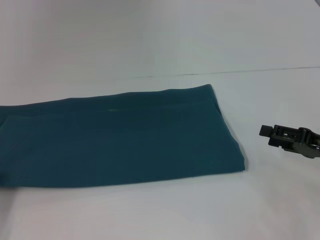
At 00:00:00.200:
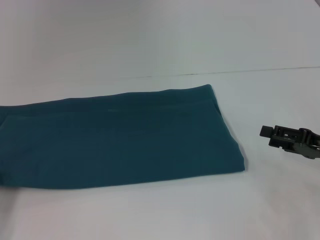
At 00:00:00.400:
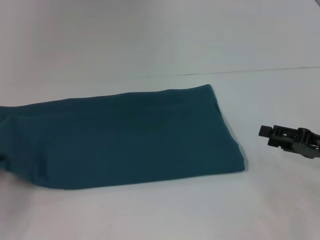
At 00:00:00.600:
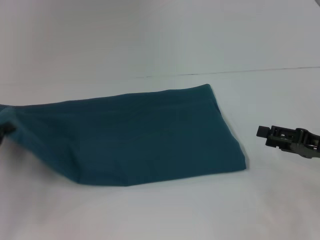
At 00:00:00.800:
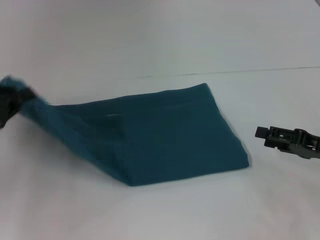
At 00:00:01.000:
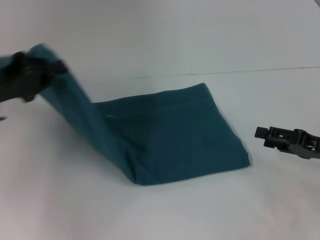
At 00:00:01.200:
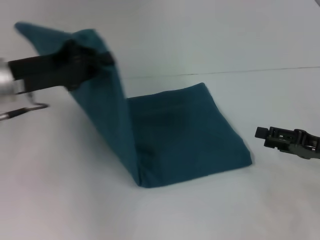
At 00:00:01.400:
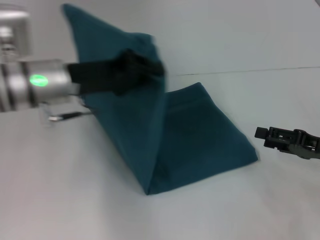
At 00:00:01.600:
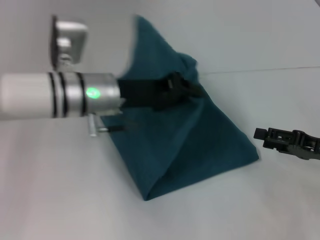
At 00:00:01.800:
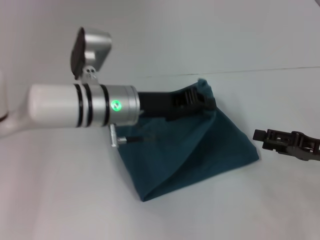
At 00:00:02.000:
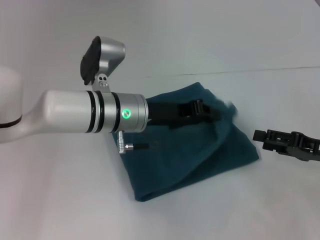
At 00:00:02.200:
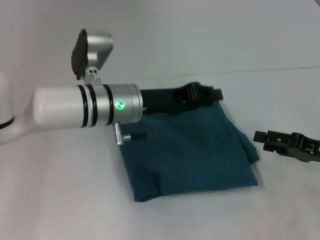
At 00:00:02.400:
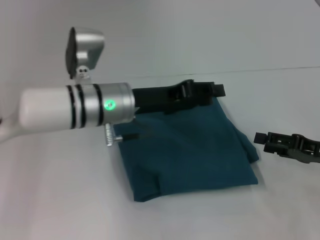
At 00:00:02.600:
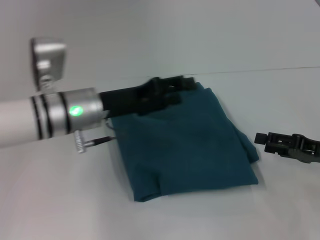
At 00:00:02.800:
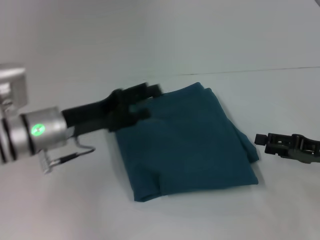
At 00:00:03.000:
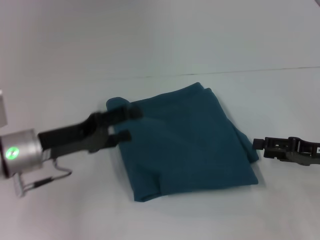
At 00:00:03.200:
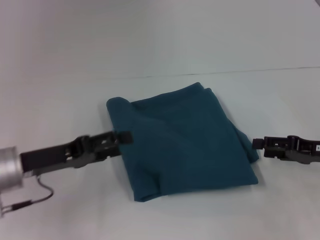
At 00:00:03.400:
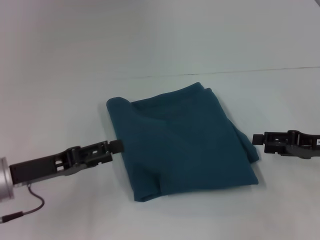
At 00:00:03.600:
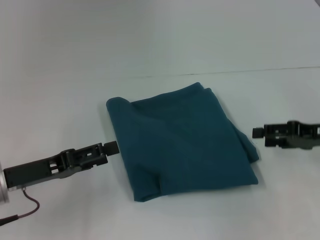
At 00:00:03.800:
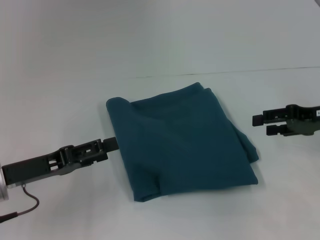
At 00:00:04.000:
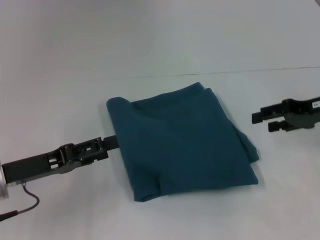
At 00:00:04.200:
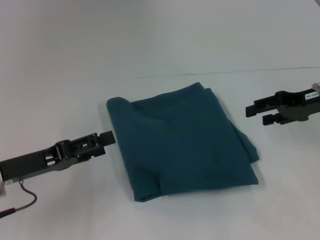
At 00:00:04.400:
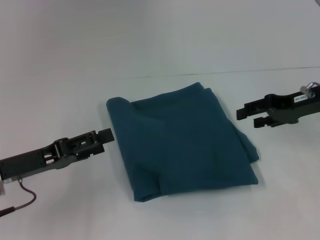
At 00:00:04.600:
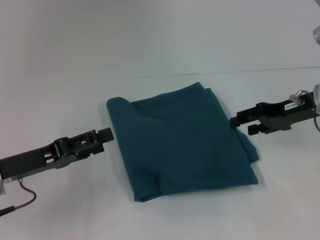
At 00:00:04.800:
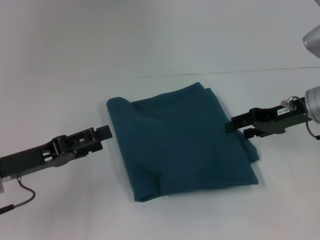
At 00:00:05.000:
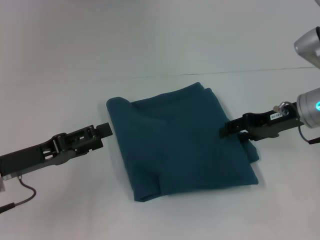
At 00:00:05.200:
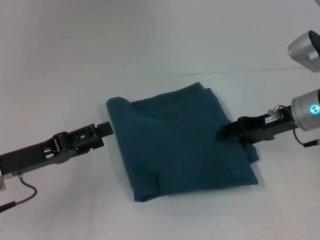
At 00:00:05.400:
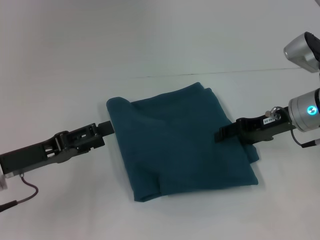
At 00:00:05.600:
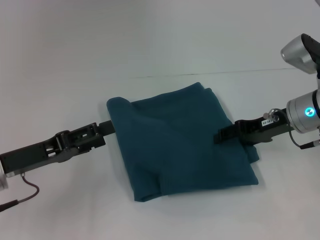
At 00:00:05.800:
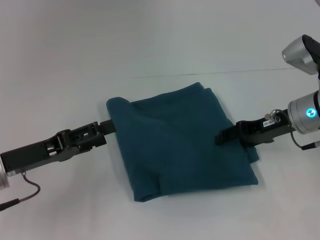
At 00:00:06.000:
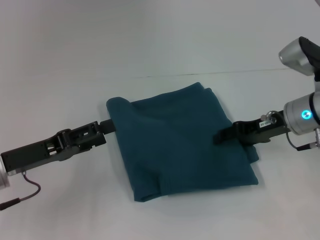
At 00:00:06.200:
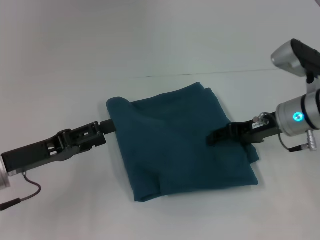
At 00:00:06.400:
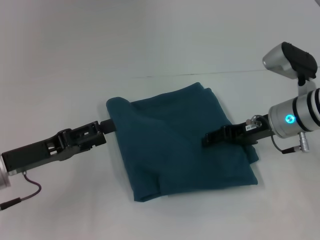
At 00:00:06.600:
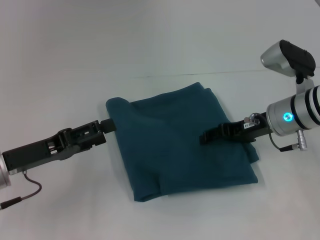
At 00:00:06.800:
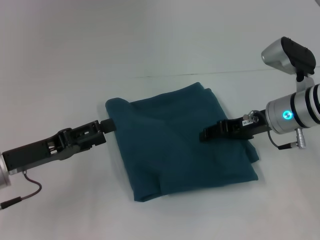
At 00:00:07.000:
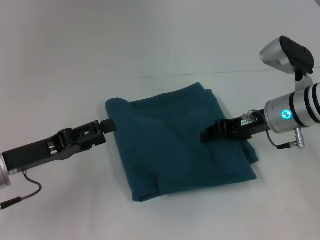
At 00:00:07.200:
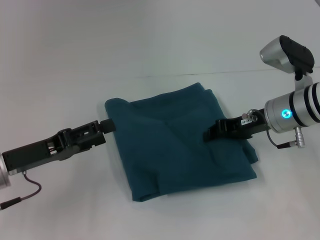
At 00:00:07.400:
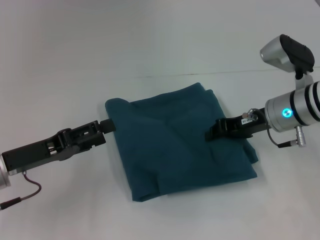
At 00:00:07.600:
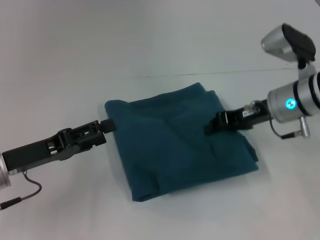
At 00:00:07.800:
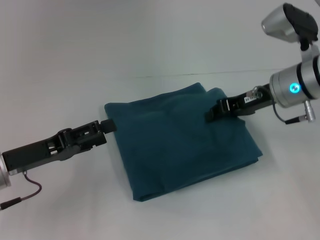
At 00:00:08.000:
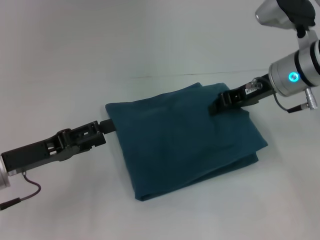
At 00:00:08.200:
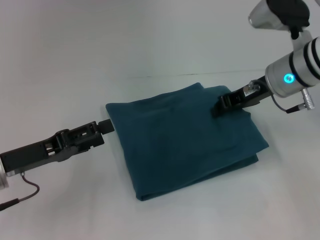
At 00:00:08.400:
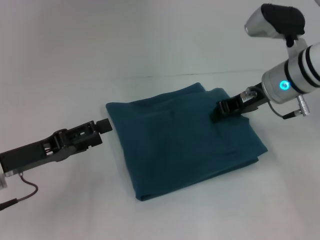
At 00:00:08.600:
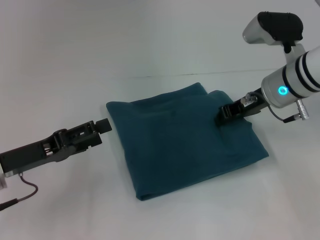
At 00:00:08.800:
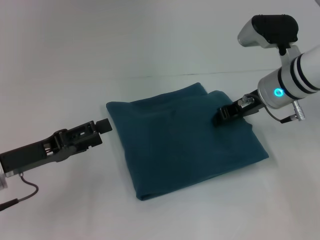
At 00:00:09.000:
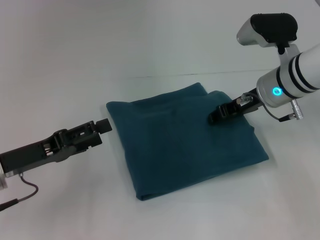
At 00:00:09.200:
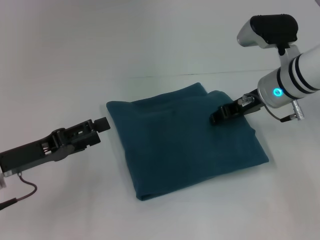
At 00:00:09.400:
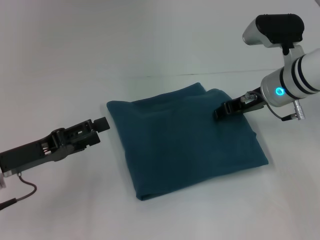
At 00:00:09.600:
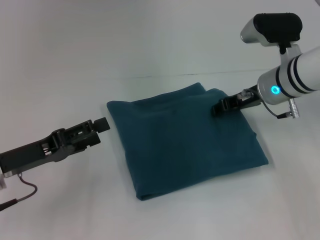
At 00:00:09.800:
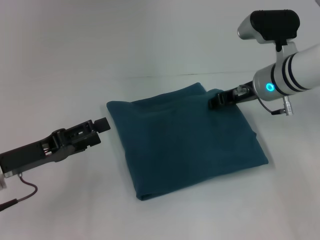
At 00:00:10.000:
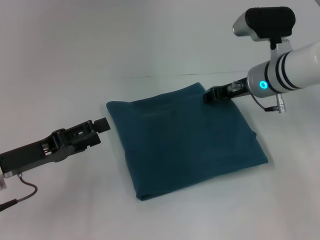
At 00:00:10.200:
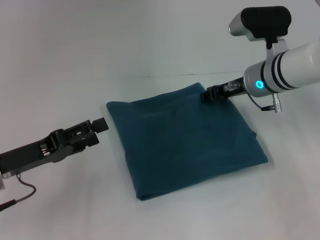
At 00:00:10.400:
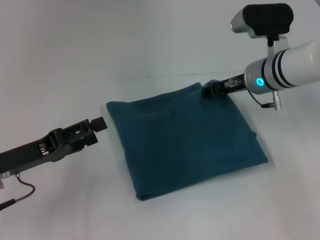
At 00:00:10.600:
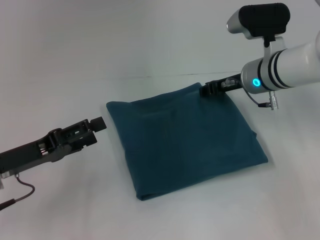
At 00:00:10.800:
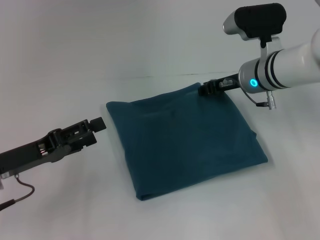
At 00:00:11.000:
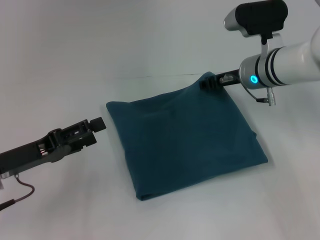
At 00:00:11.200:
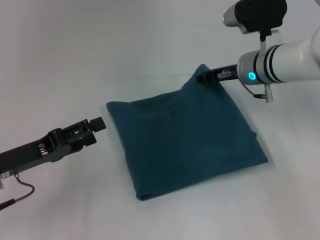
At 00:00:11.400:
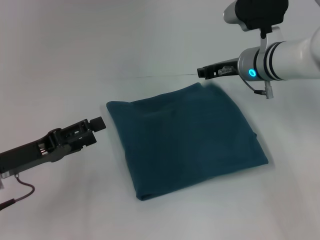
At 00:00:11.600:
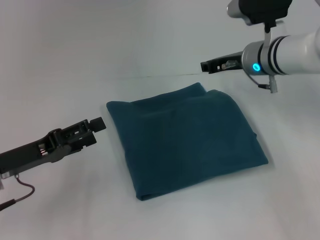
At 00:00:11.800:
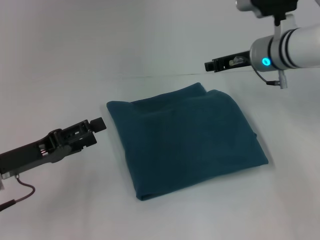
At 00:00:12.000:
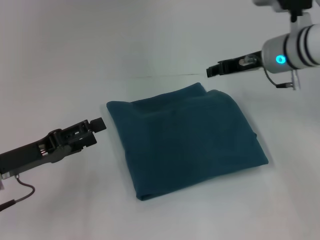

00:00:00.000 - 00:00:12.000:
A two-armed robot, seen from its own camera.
Step, 00:00:00.000 - 00:00:02.600: Fold the clothes to the left.
00:00:00.000 - 00:00:01.600: The left gripper is displaced to the right and forward by roughly 30 cm.
00:00:01.600 - 00:00:03.000: The left gripper is displaced to the left, downward and backward by some 15 cm, and opens its fingers.
00:00:03.000 - 00:00:04.400: The left gripper ends up about 5 cm from where it was. The right gripper goes some 10 cm forward and upward.
00:00:04.400 - 00:00:06.000: The right gripper moves to the left, roughly 5 cm.
00:00:06.000 - 00:00:07.600: The right gripper closes.
00:00:07.600 - 00:00:09.000: The grippers stay close to where they were, moving slightly.
00:00:09.000 - 00:00:10.400: The grippers stay close to where they were, moving slightly.
00:00:10.400 - 00:00:12.000: The grippers make only small movements.

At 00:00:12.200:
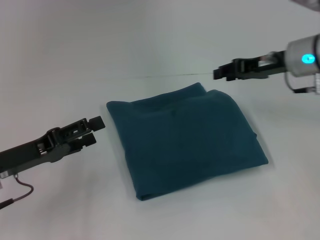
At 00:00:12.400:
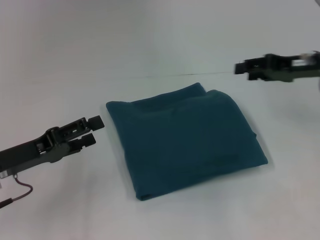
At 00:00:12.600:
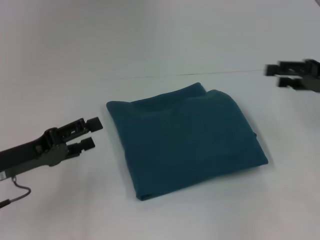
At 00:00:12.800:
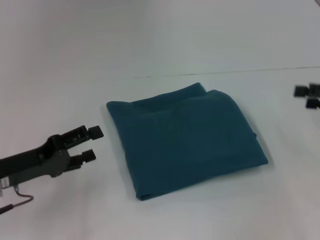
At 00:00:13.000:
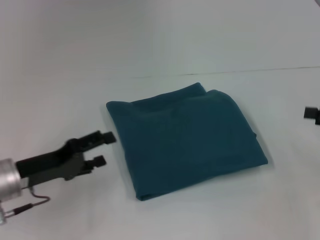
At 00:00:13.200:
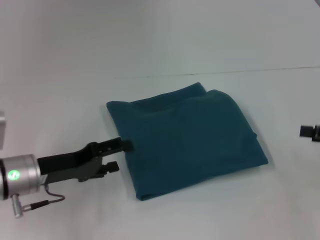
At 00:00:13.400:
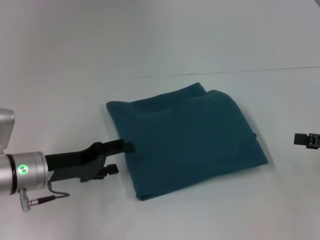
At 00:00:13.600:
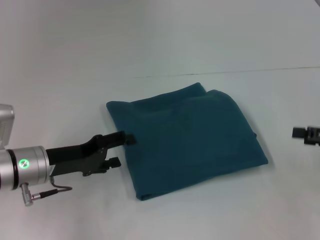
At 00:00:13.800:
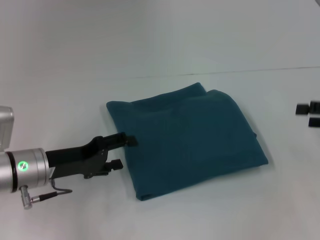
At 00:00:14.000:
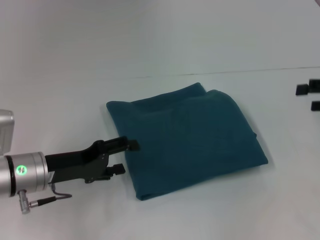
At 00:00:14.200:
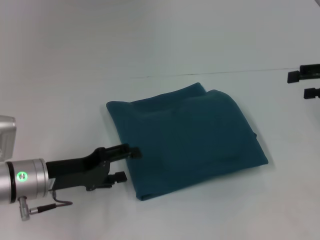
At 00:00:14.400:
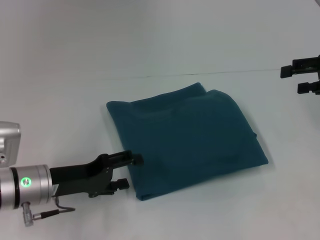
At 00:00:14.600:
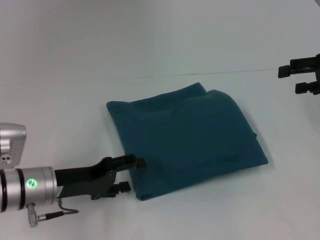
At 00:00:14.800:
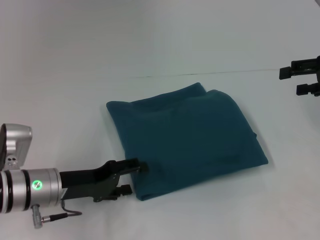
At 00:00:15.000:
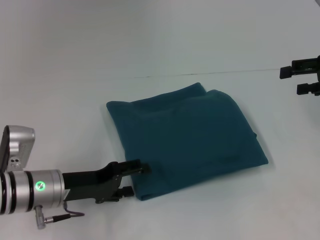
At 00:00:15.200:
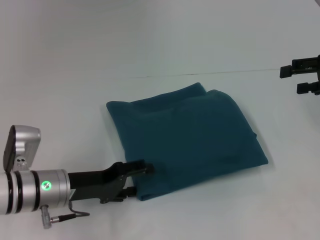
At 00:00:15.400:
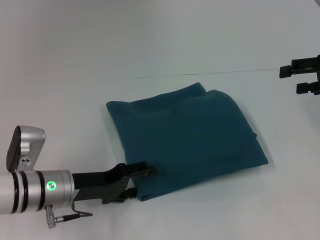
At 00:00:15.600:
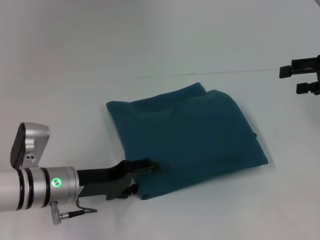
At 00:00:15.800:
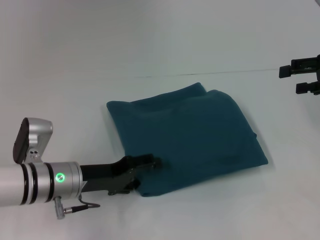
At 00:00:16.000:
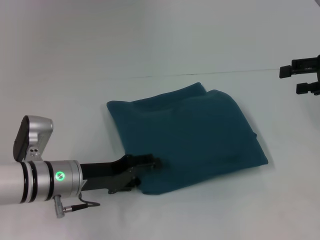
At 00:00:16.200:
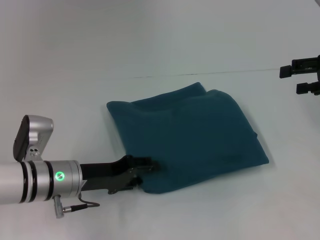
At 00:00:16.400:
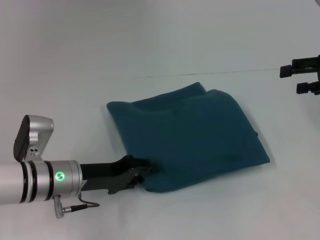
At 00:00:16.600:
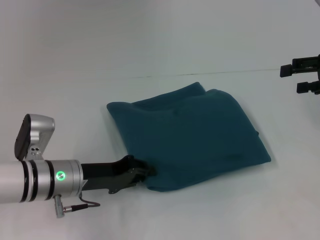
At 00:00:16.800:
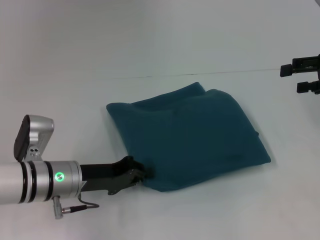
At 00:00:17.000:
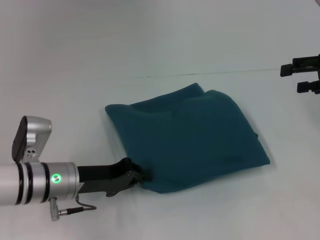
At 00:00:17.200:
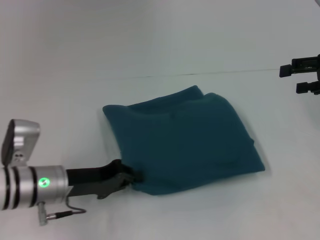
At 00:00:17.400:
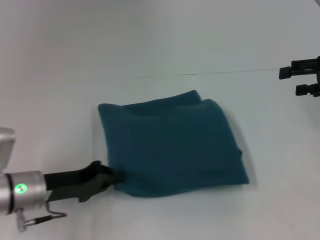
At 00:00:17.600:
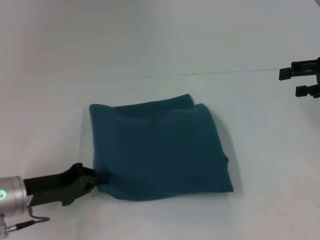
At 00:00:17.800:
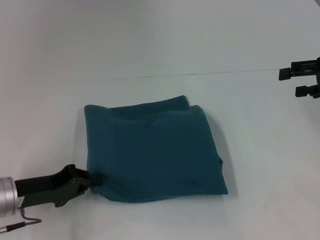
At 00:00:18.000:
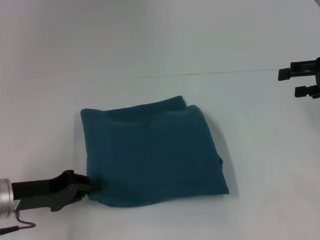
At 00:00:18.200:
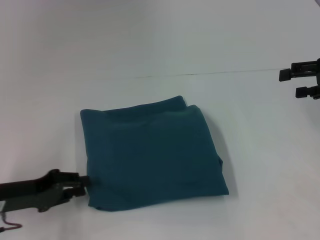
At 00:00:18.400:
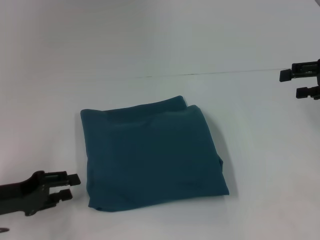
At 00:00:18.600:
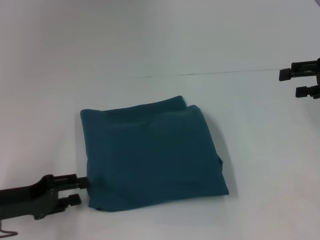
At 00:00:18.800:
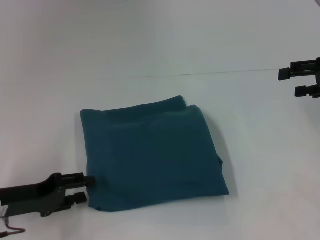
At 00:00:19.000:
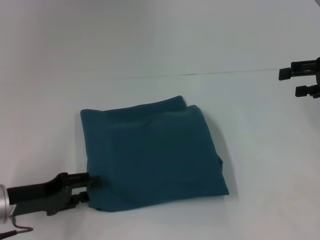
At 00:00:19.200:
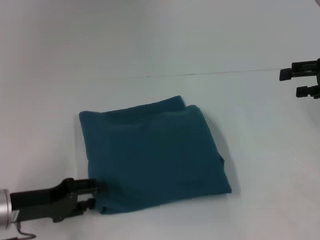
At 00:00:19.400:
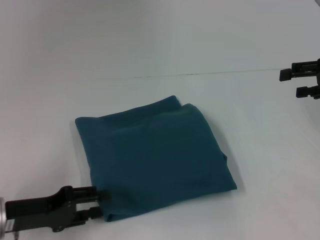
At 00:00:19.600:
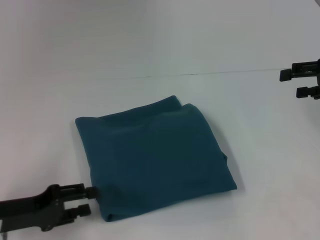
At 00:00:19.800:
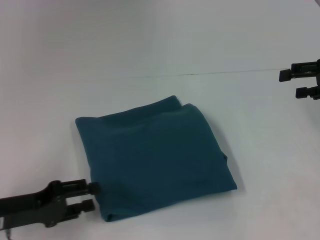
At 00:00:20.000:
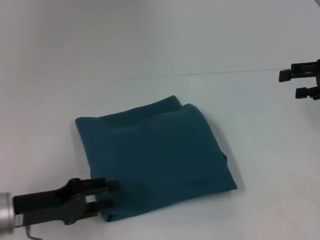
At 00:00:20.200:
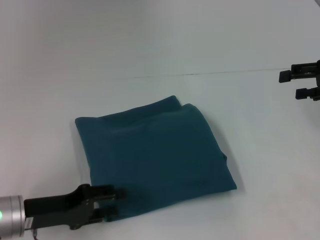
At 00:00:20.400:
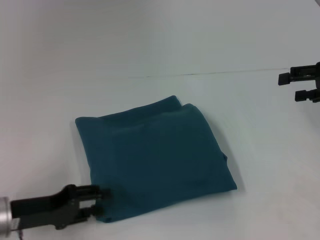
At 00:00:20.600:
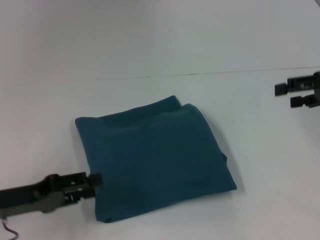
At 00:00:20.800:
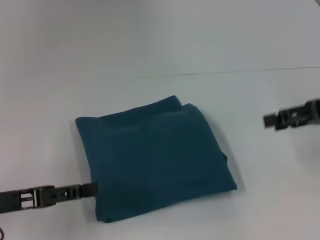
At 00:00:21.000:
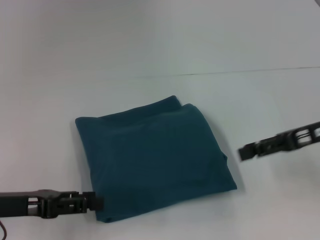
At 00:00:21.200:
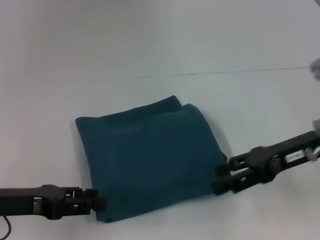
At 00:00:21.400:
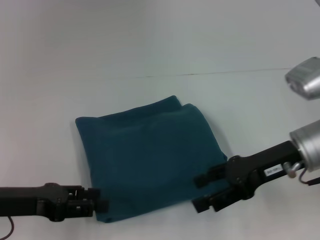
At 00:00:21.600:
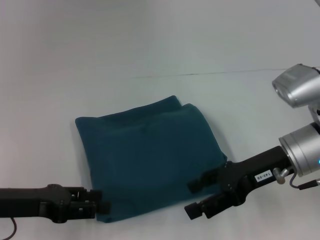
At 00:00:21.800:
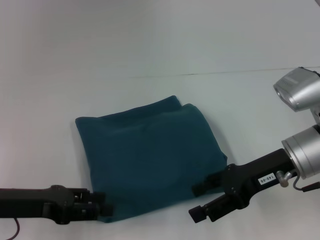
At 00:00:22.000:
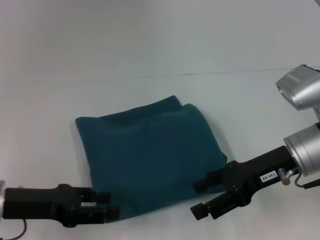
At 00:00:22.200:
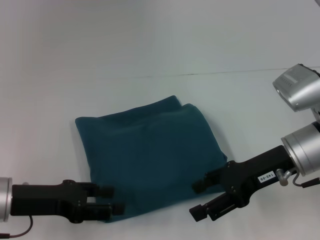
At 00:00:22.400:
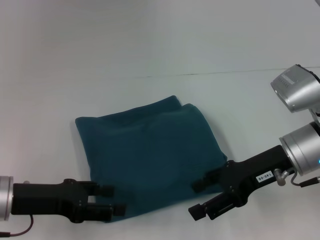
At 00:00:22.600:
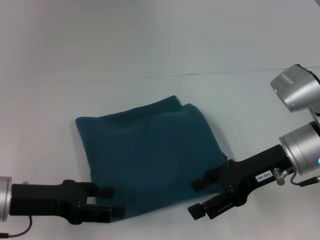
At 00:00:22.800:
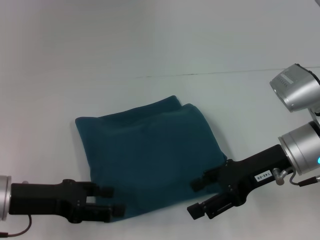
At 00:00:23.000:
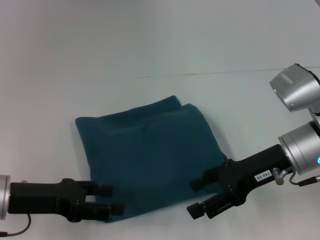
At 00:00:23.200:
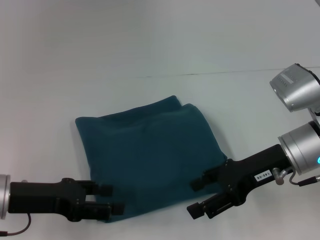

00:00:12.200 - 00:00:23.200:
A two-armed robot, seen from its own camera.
00:00:12.200 - 00:00:13.800: The right gripper moves to the right and backward, some 20 cm, and opens. Meanwhile the left gripper shifts by some 5 cm.
00:00:13.800 - 00:00:15.400: The right gripper heads forward and upward, covering some 10 cm.
00:00:15.400 - 00:00:17.000: The left gripper closes its fingers.
00:00:17.000 - 00:00:18.400: The left gripper heads to the left, covering roughly 10 cm.
00:00:18.400 - 00:00:20.000: There are only small adjustments of the grippers.
00:00:20.000 - 00:00:21.600: The right gripper shifts some 15 cm to the left and downward.
00:00:21.600 - 00:00:23.200: The grippers move only a little.
